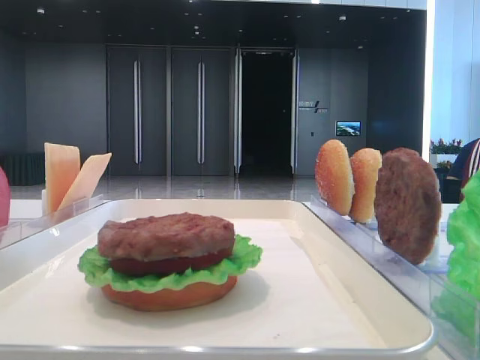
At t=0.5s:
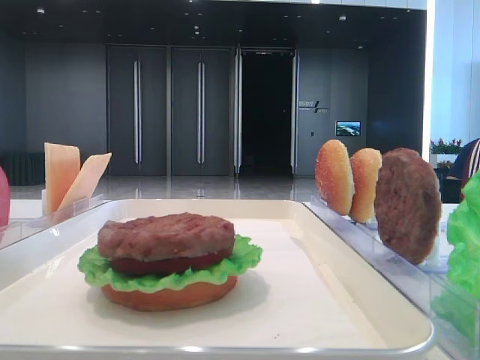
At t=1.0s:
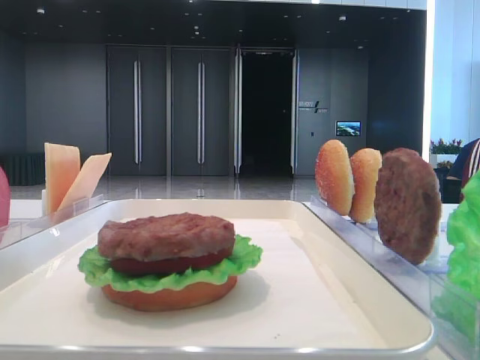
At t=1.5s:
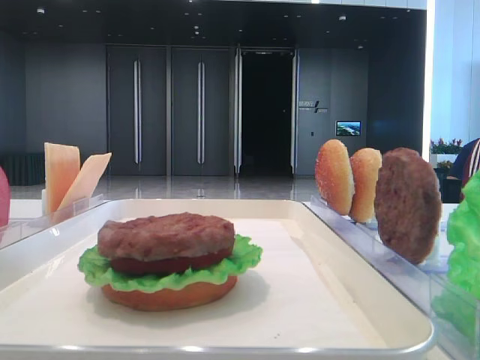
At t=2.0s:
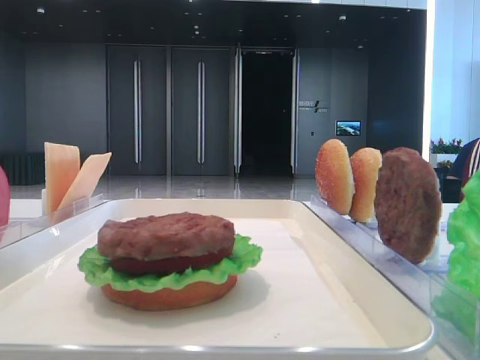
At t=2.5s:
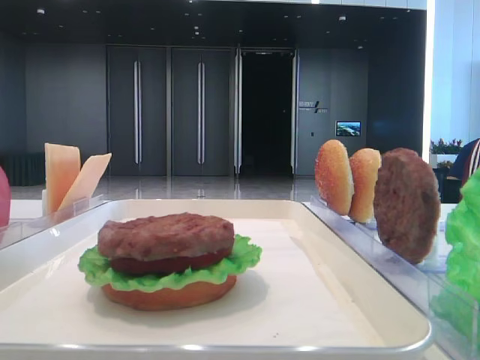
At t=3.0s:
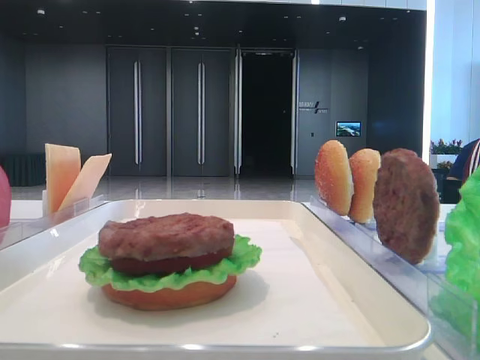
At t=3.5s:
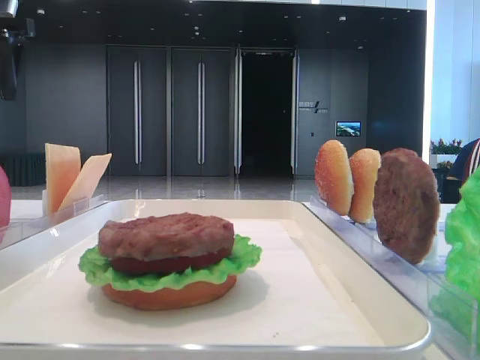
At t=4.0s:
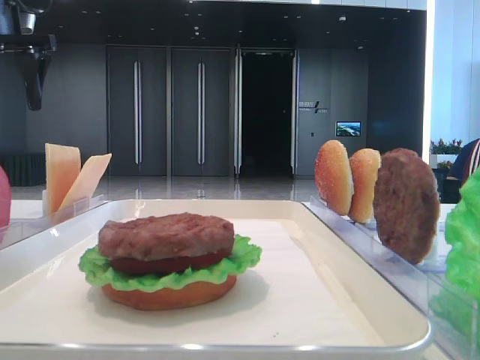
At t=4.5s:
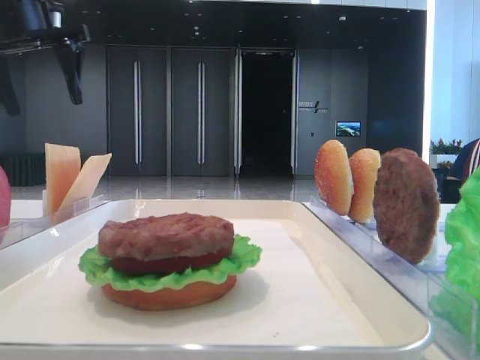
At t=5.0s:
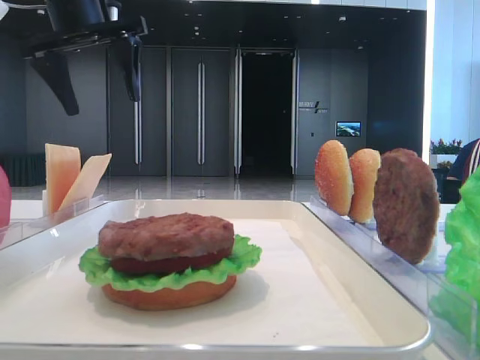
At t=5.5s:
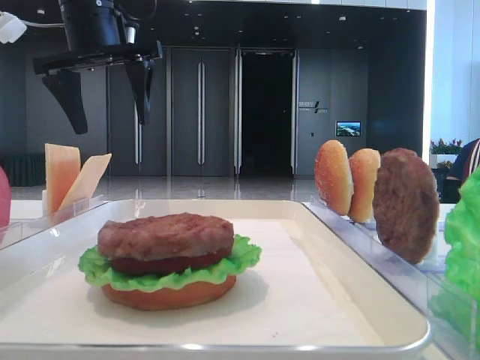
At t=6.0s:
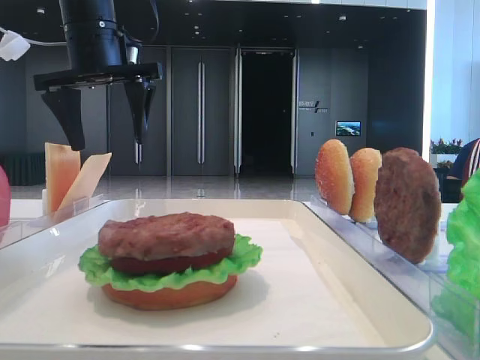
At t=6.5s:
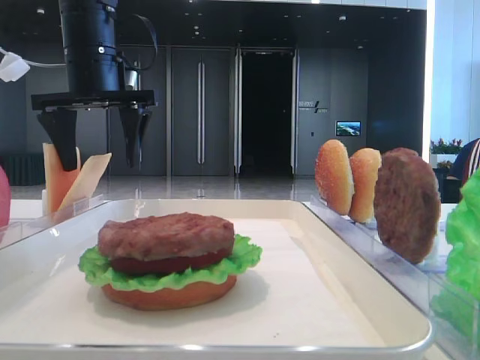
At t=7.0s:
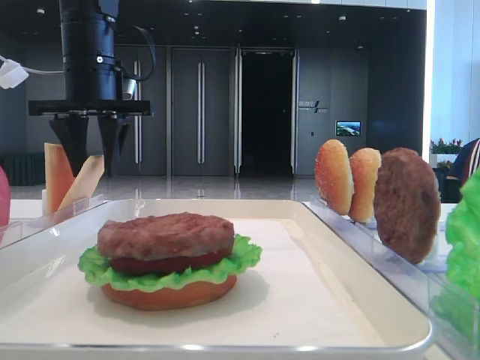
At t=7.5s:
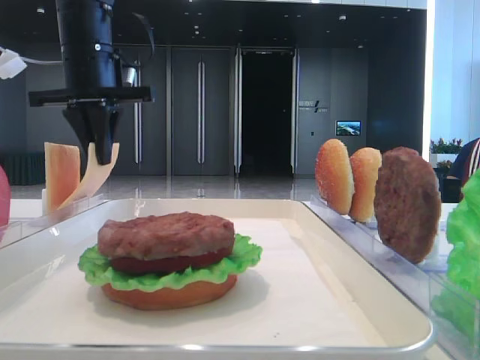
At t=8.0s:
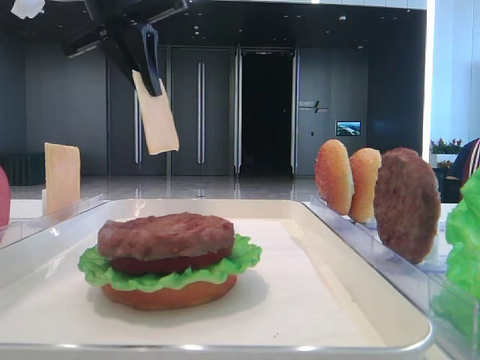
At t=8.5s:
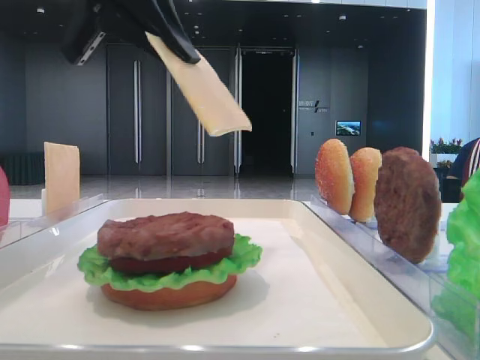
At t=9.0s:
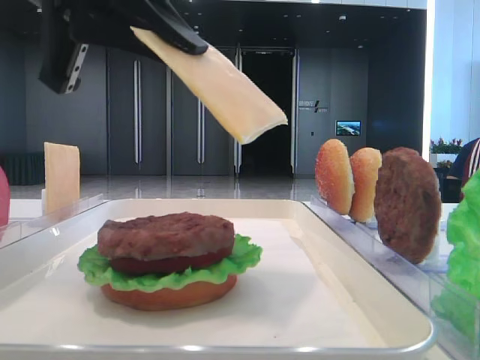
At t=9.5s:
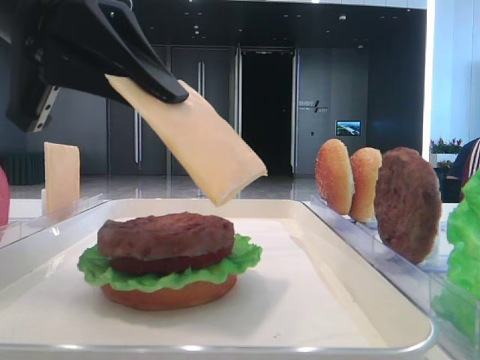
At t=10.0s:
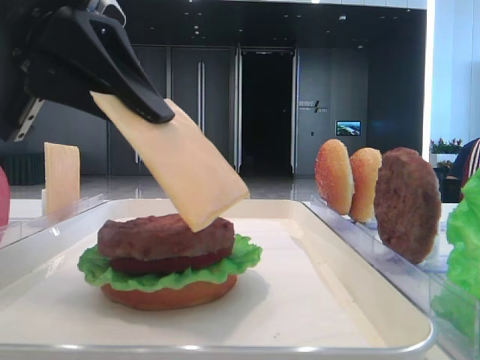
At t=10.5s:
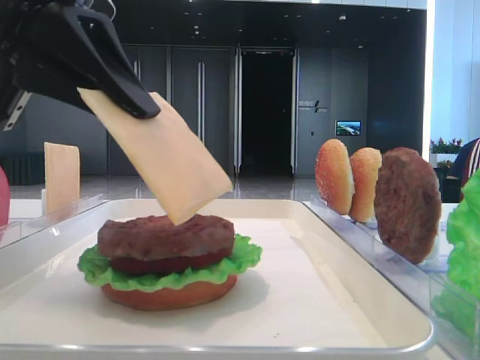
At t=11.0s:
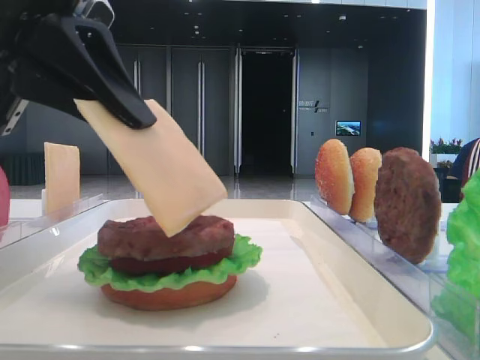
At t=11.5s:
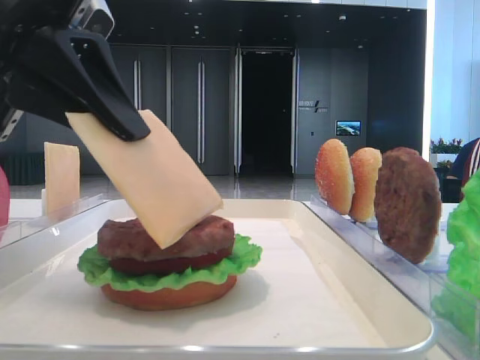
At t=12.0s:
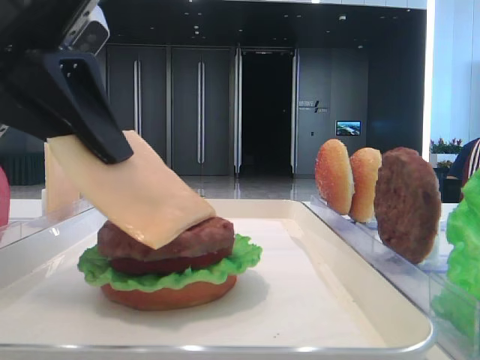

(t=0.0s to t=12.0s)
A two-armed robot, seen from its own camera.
Step, t=0.0s - t=7.0s: Pick up the cheese slice with the left hand.
t=2.0s - t=4.0s: The left gripper moves forward, some 25 cm.
t=4.0s - t=6.0s: The left gripper shifts approximately 15 cm to the right.
t=6.0s - t=8.0s: The left gripper moves approximately 5 cm, and closes.
t=8.0s - t=10.0s: The left gripper travels backward and downward by roughly 20 cm.
t=10.0s - t=12.0s: There are only small adjustments of the grippers.

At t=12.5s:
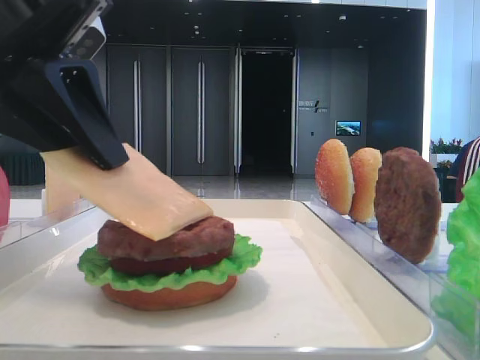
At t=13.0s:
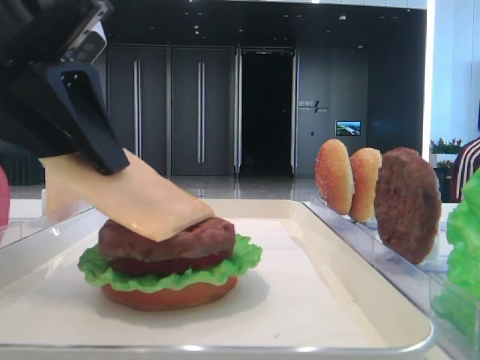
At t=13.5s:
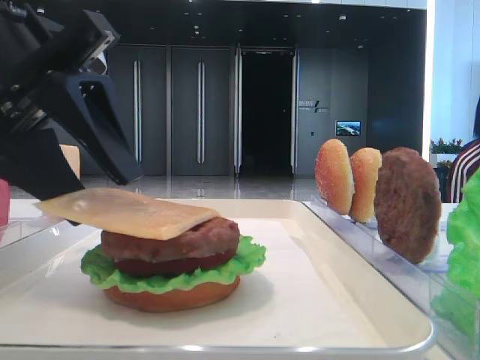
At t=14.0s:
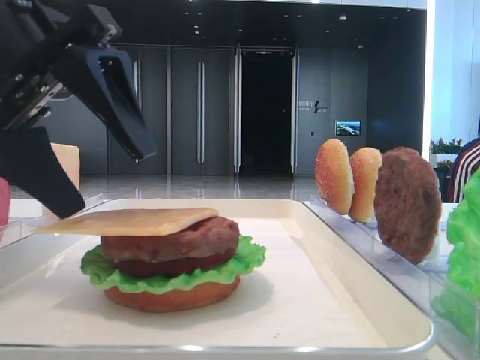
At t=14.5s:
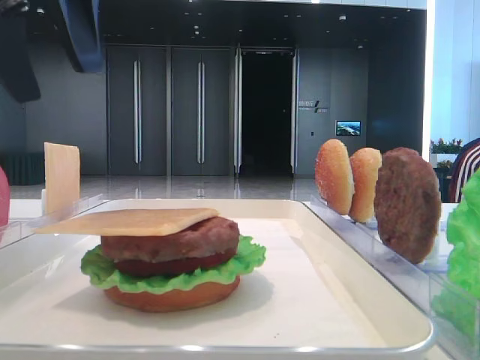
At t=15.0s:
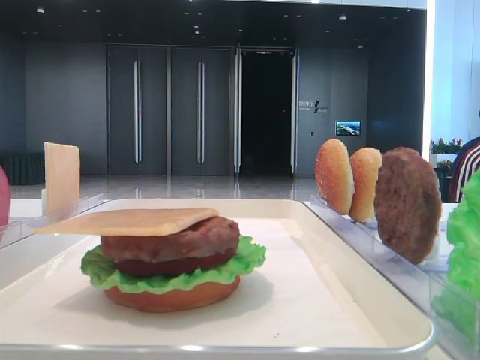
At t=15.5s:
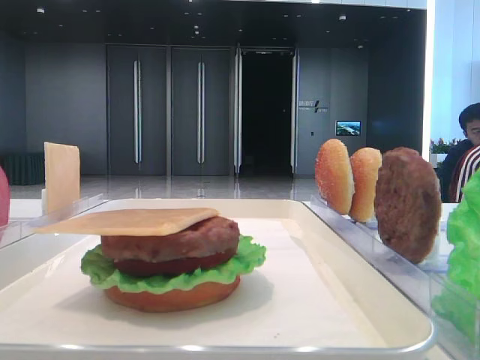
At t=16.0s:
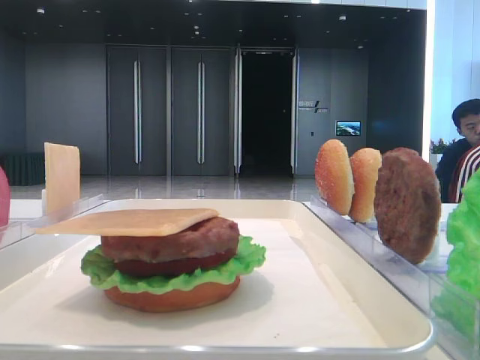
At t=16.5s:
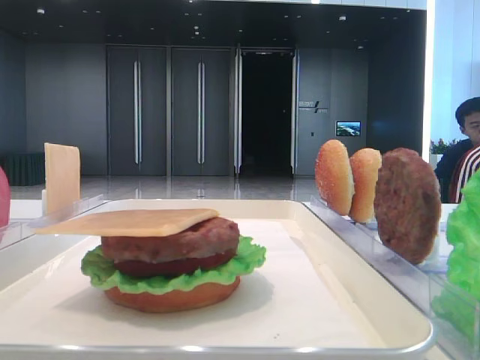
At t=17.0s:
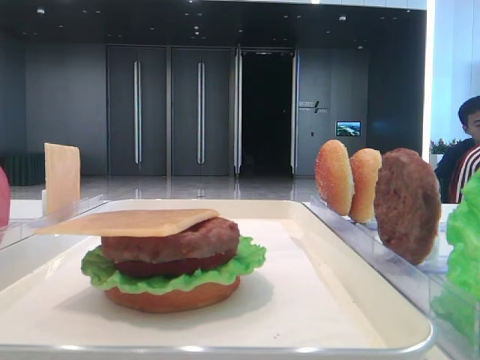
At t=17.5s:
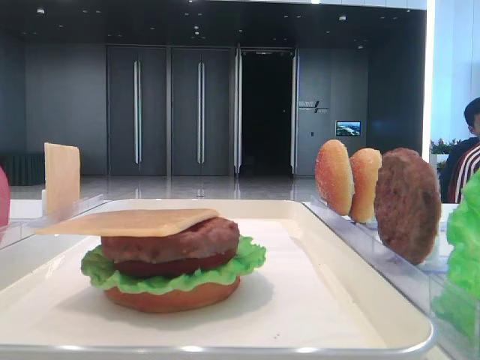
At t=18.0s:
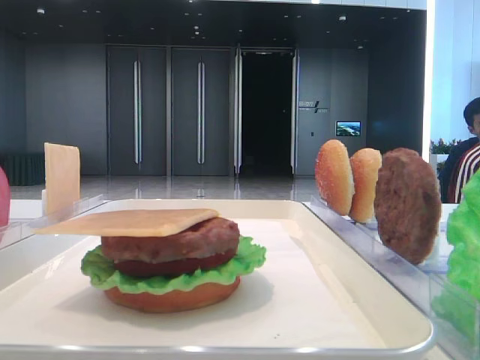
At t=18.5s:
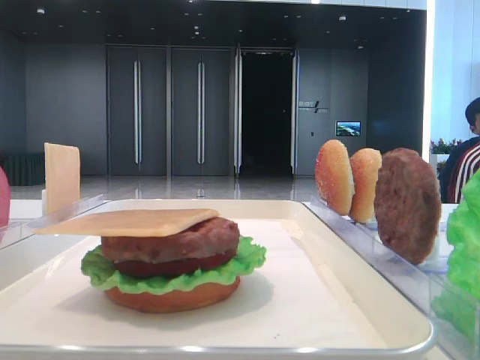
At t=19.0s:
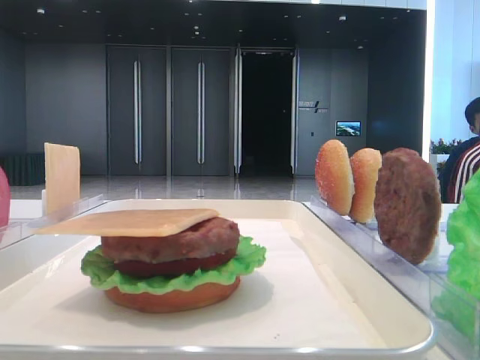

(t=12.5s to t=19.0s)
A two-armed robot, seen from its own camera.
t=12.5s - t=14.5s: The left gripper moves upward, roughly 10 cm, and opens up.
t=14.5s - t=17.0s: The left gripper heads backward and to the left, covering approximately 30 cm.
t=17.0s - t=19.0s: Both grippers stay put.
